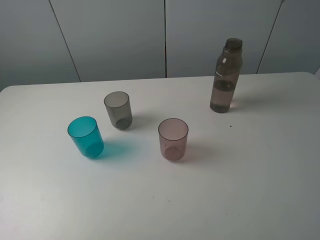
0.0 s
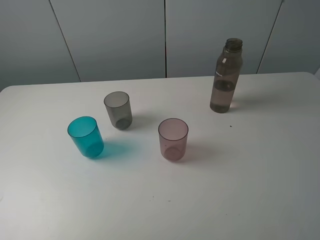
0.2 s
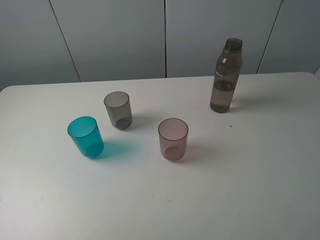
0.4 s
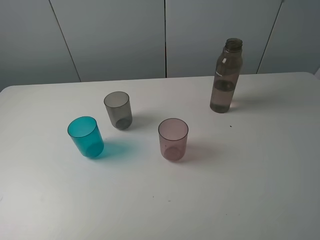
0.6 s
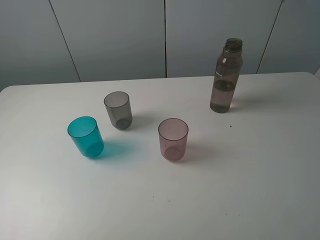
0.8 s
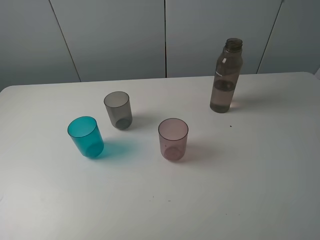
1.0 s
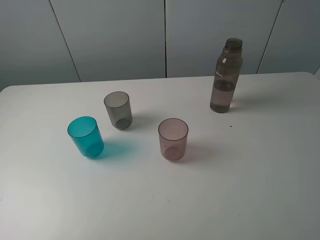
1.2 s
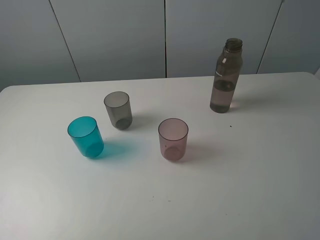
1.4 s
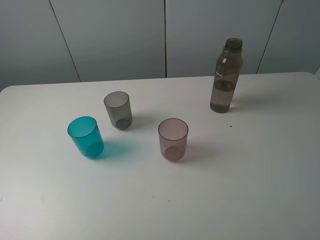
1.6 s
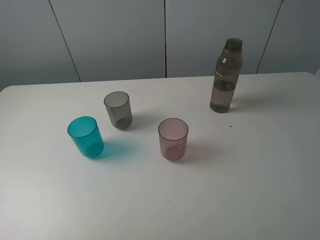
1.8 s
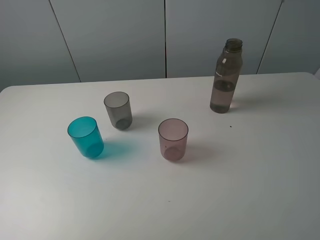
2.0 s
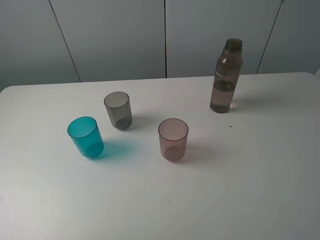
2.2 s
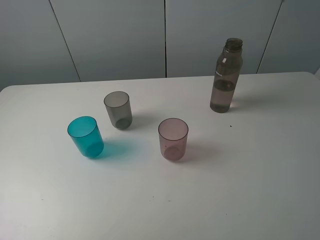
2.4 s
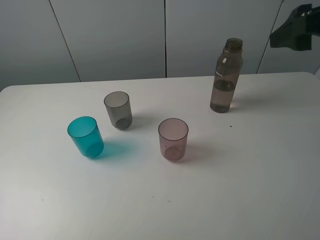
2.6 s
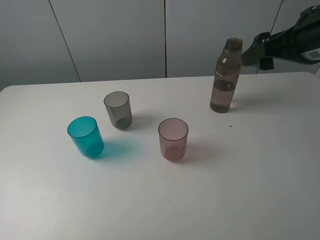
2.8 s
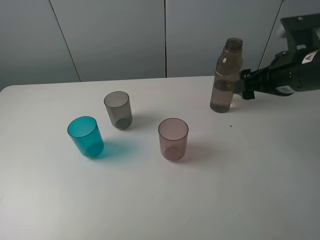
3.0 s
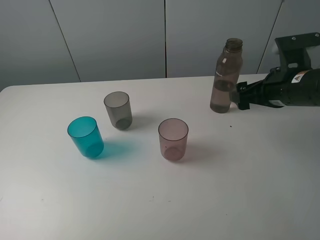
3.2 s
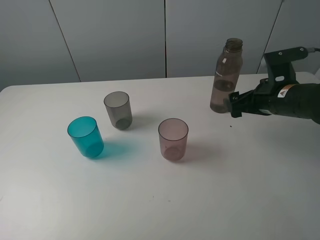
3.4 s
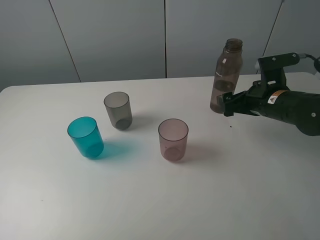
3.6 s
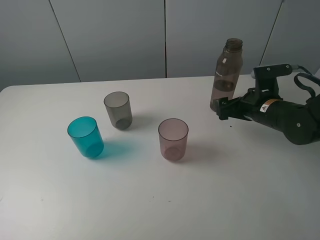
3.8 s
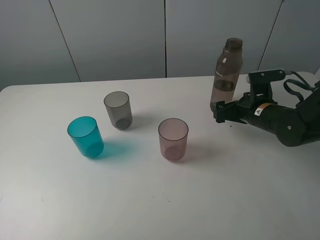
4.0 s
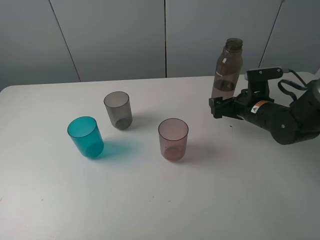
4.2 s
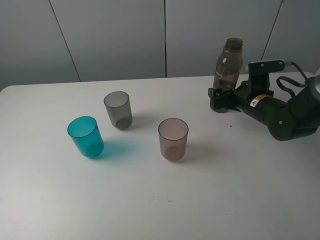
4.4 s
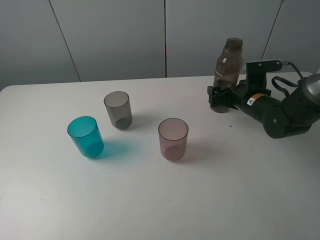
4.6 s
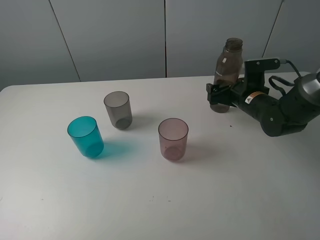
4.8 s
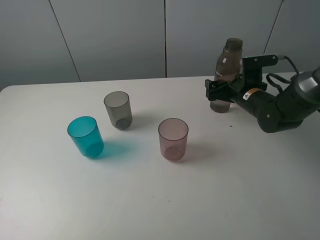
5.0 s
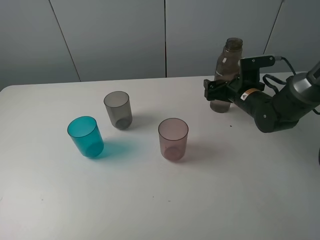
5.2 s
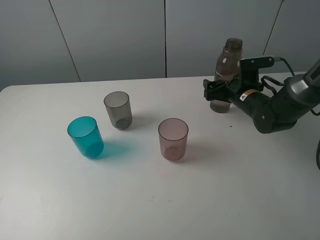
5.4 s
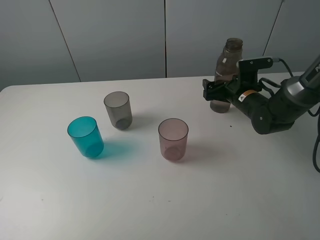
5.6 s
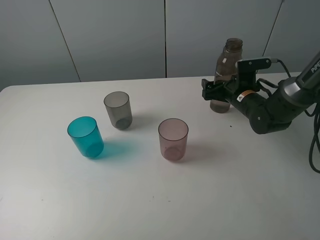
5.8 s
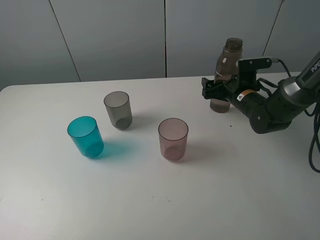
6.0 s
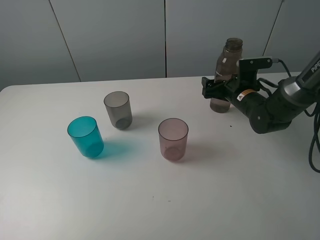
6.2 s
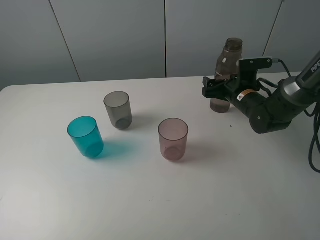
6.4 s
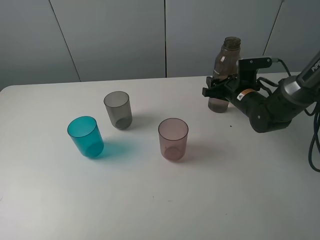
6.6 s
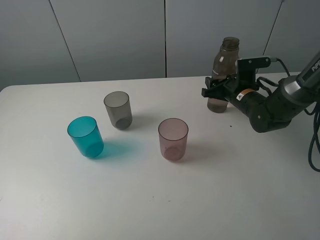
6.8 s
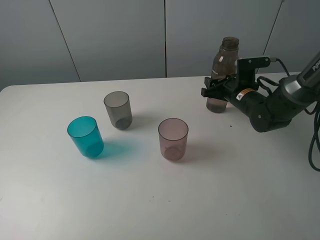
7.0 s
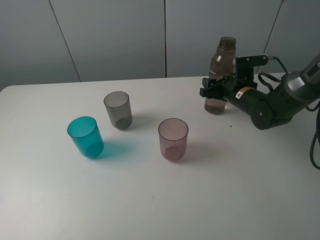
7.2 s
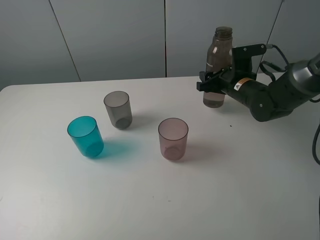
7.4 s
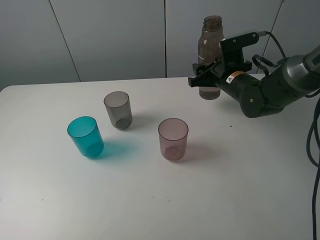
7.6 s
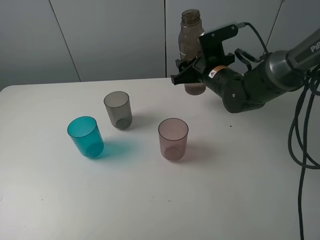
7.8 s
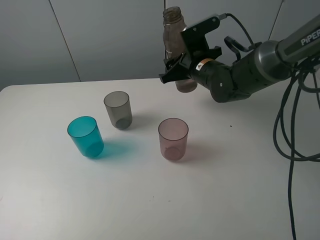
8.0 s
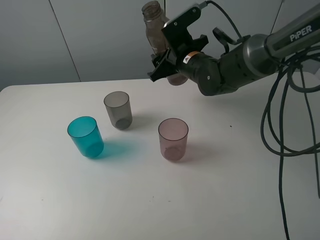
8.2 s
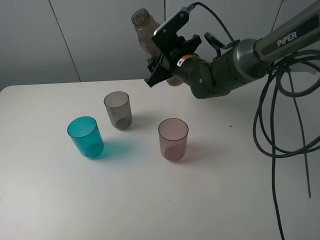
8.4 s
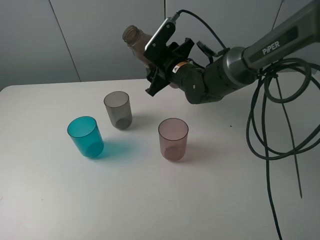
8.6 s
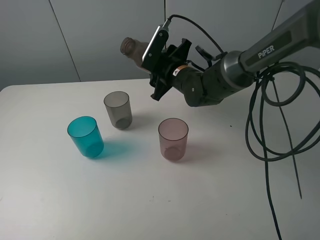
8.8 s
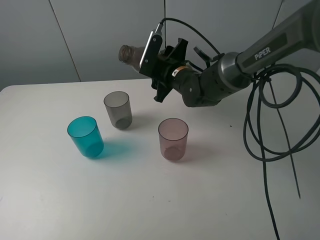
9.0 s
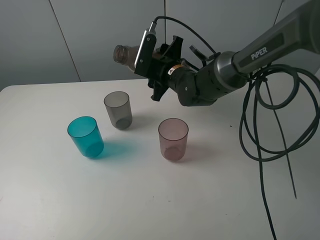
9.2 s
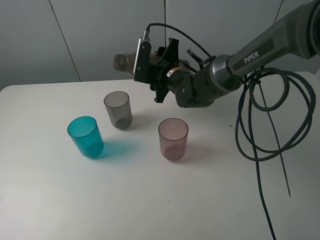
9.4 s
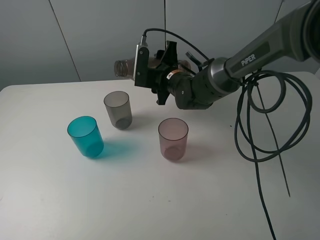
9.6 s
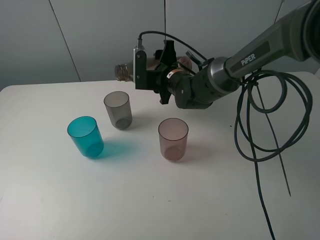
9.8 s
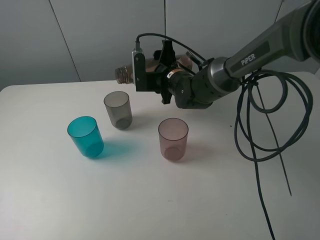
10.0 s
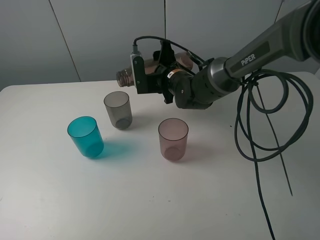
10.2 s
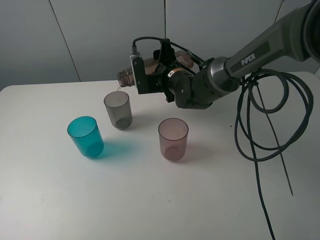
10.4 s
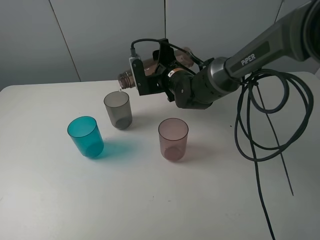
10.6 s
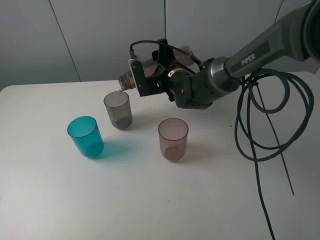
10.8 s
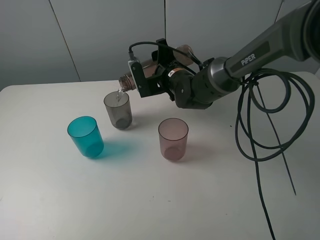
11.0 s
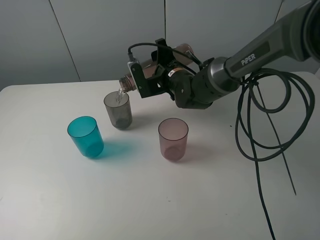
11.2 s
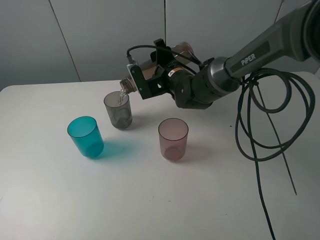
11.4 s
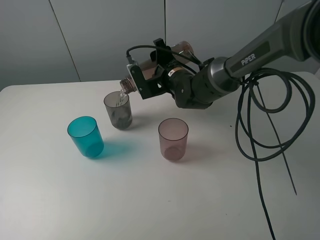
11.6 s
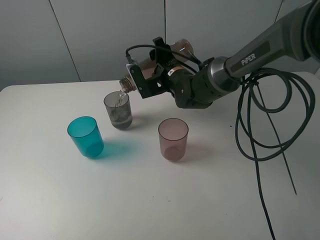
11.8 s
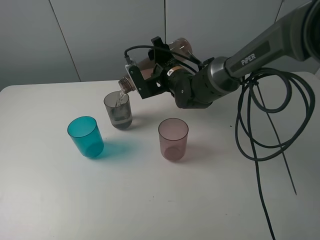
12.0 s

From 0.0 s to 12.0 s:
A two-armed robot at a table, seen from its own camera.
Task of the whole recording: pick up the bottle filled with water and pour water into the middle cup of the three cups.
Step, from 0.0 s to 6.4 s: Grasp the transparent bottle with the right gripper.
From 0.0 s to 1.6 s: Neither gripper changes place.
From 1.6 s to 3.0 s: The right gripper goes some 25 cm forward.
From 3.0 s to 4.4 s: The right gripper shifts roughly 15 cm downward and forward.
From 4.4 s to 6.0 s: The grippers stay close to where they were, moving slightly.
From 6.0 s to 7.6 s: The right gripper goes roughly 10 cm upward and to the left, and closes up.
From 7.6 s to 9.0 s: The right gripper is displaced to the left by some 10 cm.
From 10.4 s to 12.0 s: The grippers make only small movements.

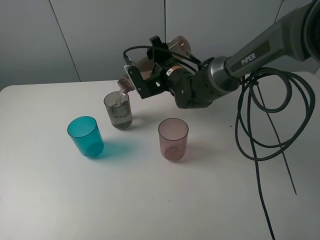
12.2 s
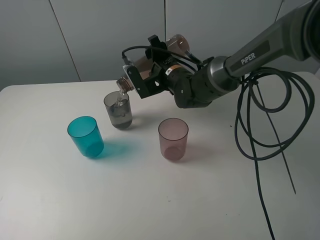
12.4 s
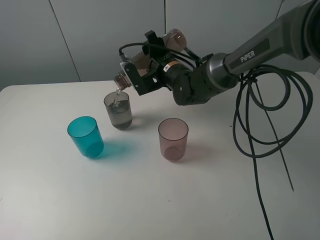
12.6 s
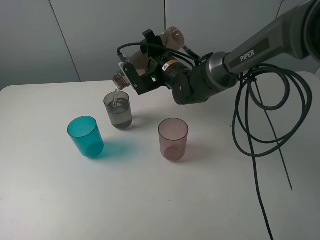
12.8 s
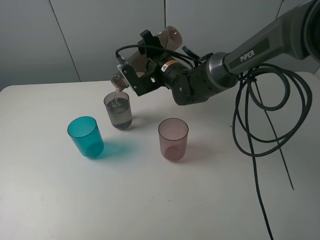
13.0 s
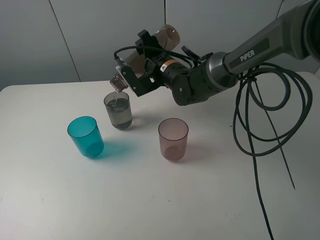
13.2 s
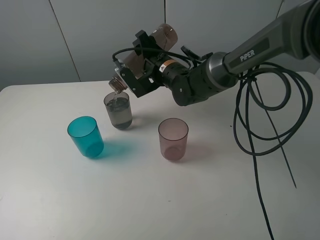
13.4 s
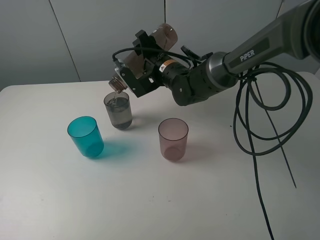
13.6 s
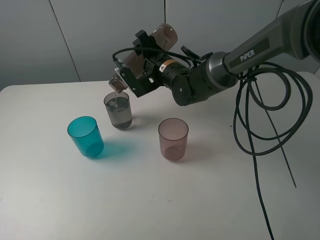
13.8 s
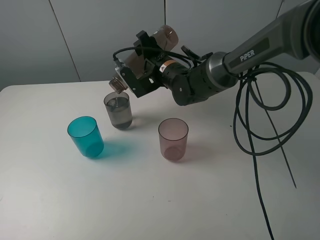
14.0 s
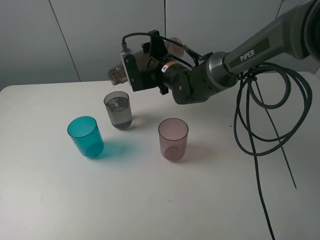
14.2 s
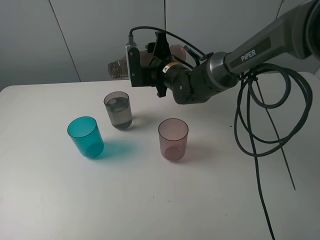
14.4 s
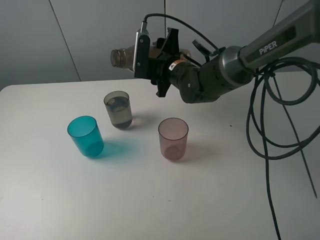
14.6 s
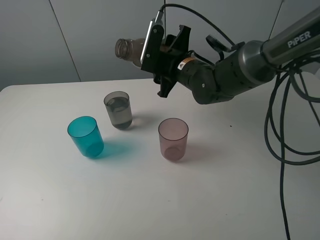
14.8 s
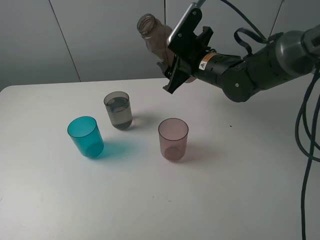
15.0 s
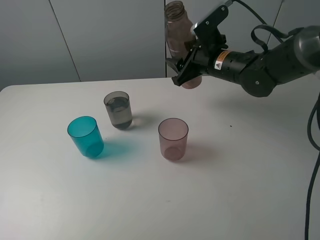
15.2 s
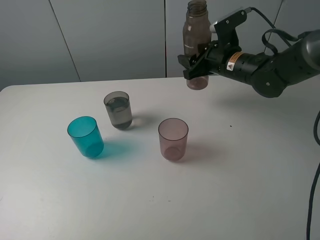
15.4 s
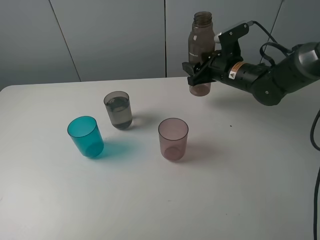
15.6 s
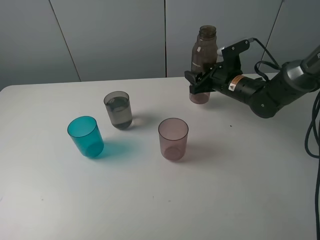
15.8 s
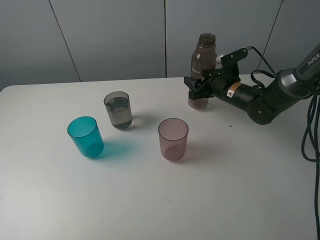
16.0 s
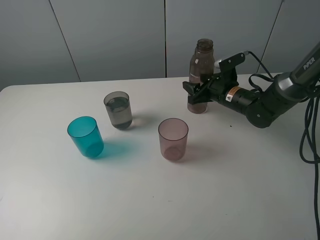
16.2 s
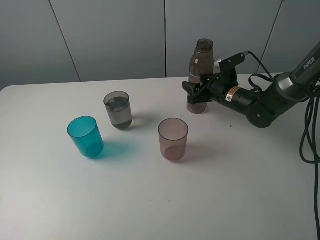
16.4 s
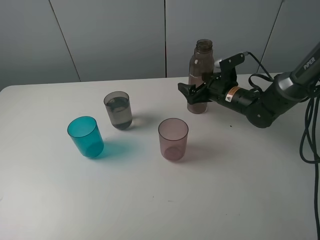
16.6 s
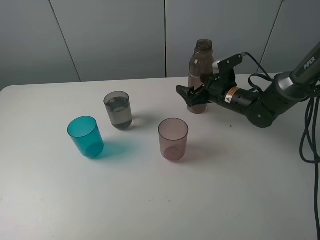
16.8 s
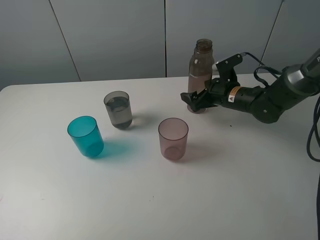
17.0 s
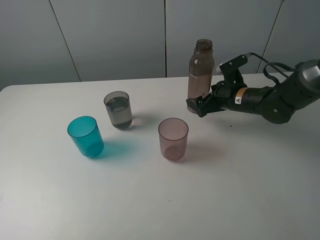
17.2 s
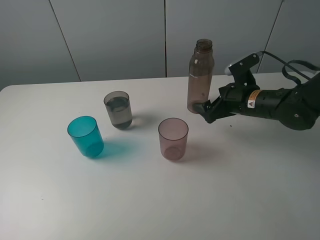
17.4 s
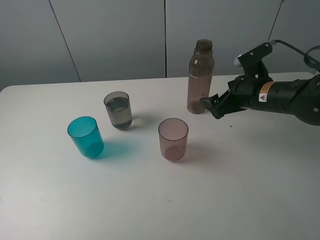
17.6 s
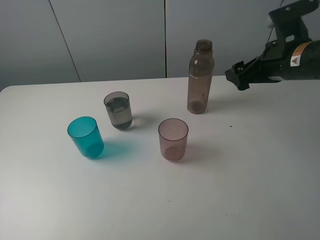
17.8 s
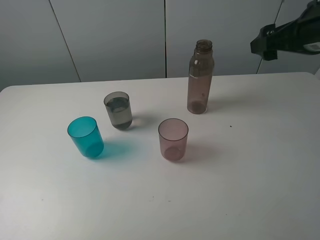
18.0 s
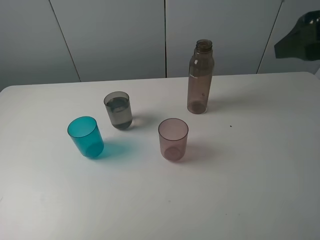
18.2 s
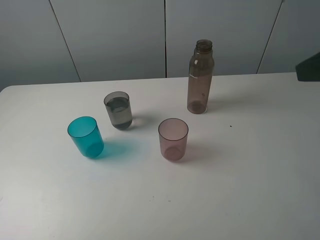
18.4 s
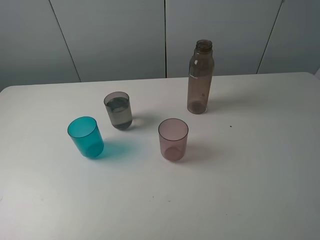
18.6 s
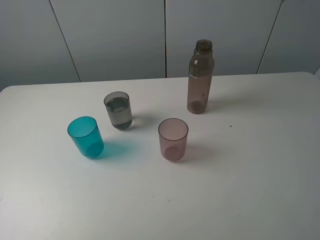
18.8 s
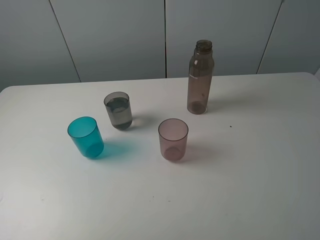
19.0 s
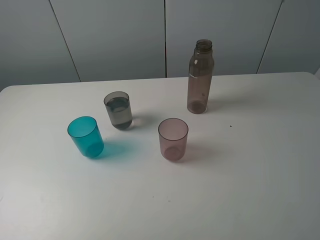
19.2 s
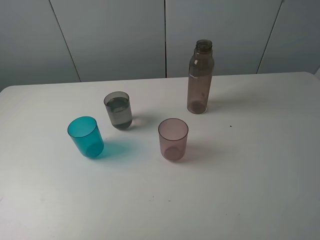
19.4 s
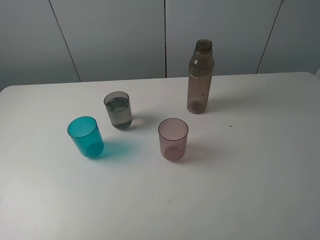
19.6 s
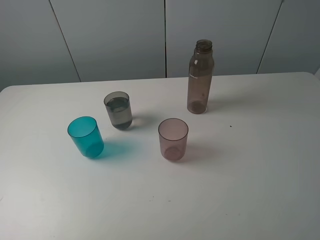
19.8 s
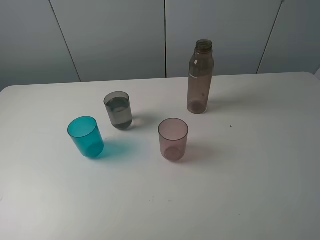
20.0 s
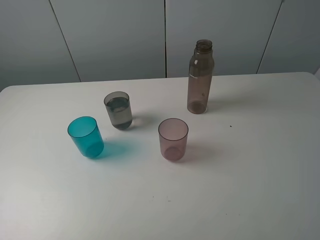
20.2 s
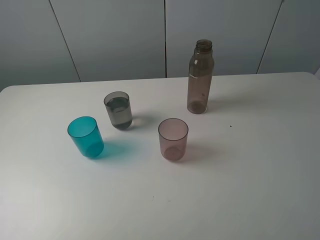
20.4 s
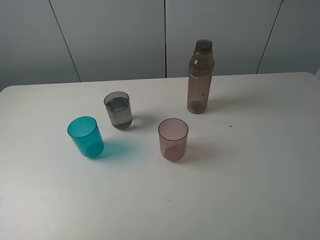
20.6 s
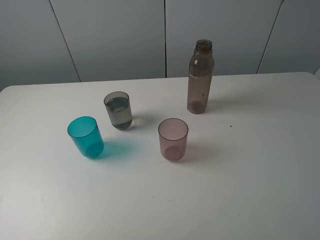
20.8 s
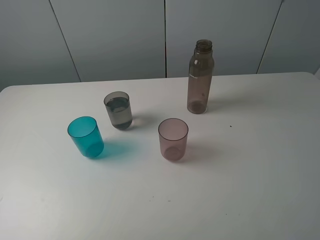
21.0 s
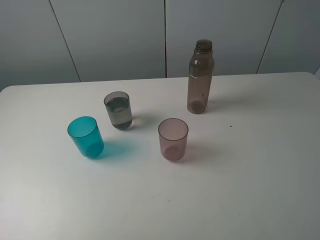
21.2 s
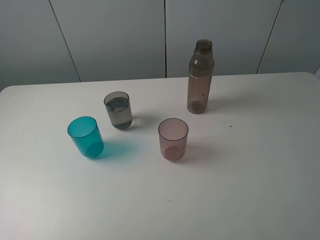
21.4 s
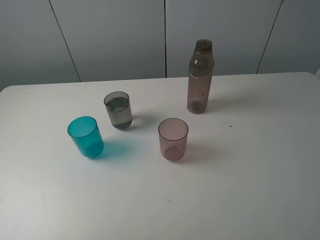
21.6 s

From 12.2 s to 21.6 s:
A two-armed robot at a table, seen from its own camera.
Task of the whole recording: pick up the bottle filled with water and pour water into the middle cup of the three cups.
Step, from 12.2 s to 14.4 s: Pour water from transparent bottle to grey cup with the right gripper.
Step, from 14.6 s to 17.8 s: Place the transparent bottle with the right gripper.
From 12.2 s to 13.8 s: The grippers make only small movements.
From 13.8 s to 15.4 s: The right gripper moves to the right, approximately 15 cm.
From 15.4 s to 17.0 s: The right gripper is displaced downward by approximately 10 cm, and opens up.
From 17.0 s to 18.4 s: The right gripper is displaced upward and backward by roughly 35 cm.
From 18.4 s to 20.0 s: The right gripper travels backward and downward by about 15 cm.
From 20.0 s to 21.6 s: Both grippers stay about where they are.

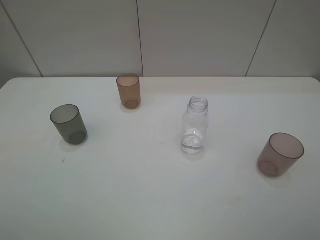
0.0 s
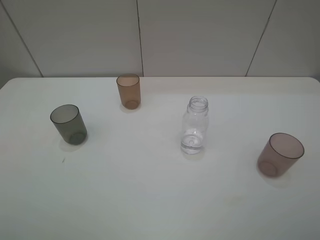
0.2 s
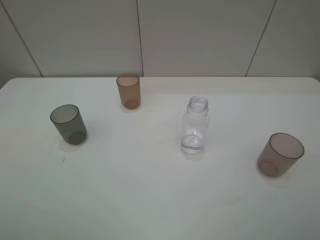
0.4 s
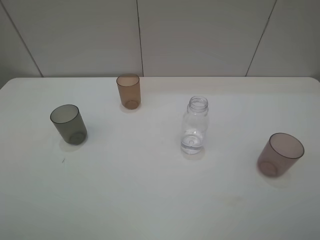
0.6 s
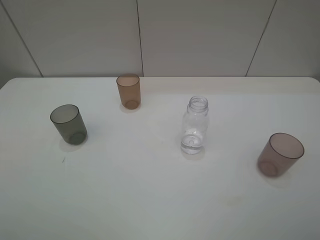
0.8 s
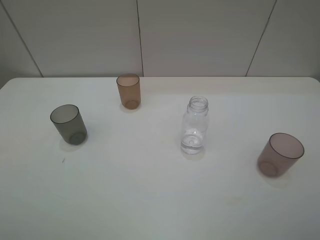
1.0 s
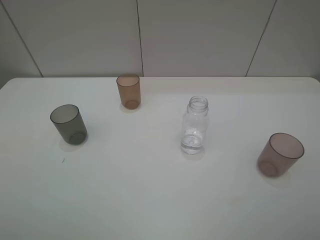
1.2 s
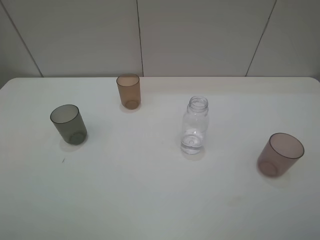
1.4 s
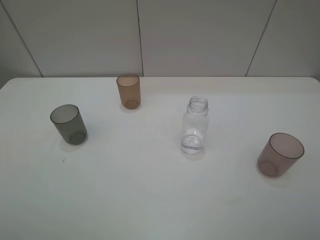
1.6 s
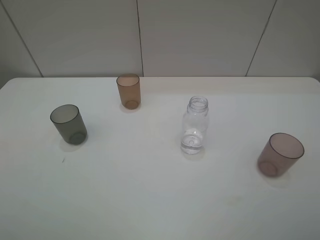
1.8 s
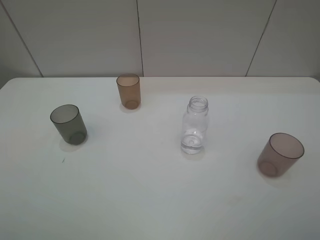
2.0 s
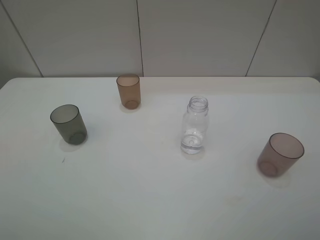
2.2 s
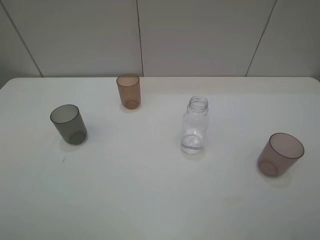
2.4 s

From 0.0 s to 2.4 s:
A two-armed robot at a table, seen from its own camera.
Task of the whole recording: pick up the bottle filled with water and pour water into the middle cup of the three cups.
From 0.0 s to 1.2 s: Both grippers stay about where they are.
